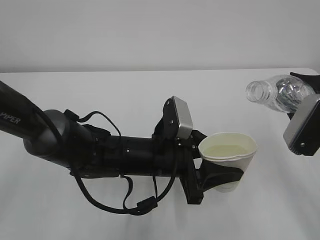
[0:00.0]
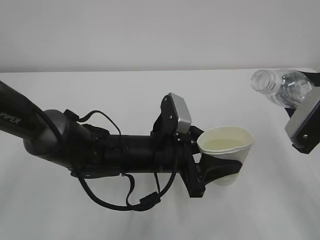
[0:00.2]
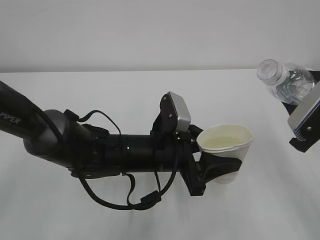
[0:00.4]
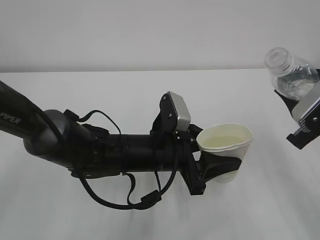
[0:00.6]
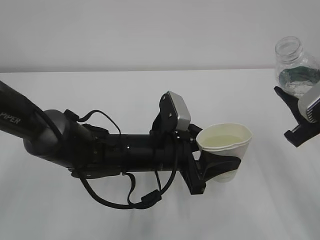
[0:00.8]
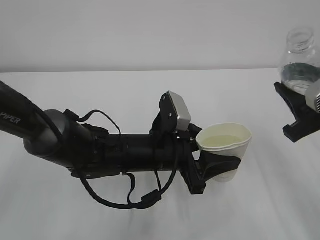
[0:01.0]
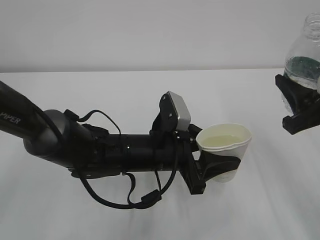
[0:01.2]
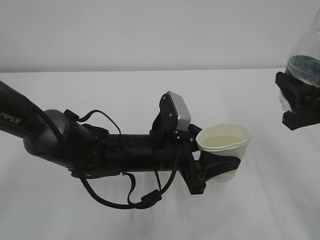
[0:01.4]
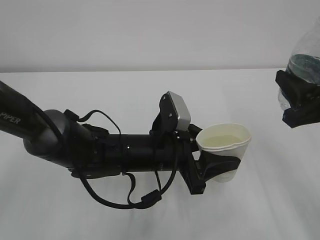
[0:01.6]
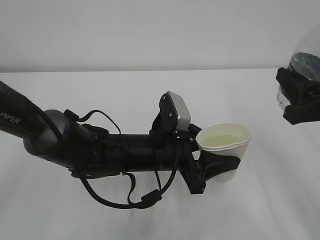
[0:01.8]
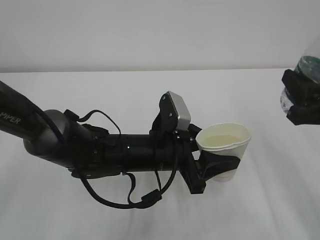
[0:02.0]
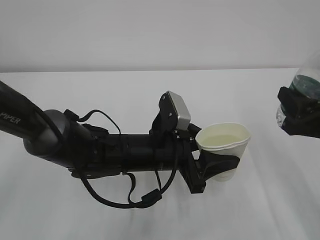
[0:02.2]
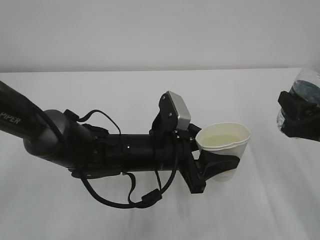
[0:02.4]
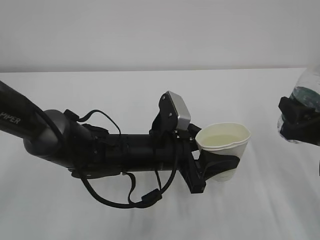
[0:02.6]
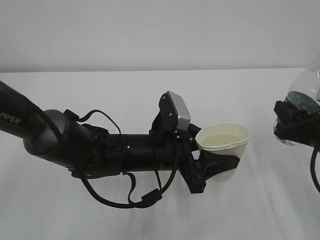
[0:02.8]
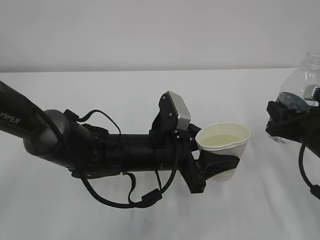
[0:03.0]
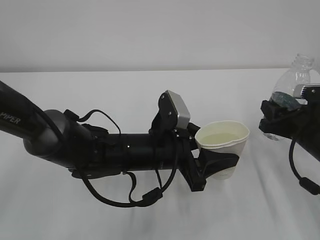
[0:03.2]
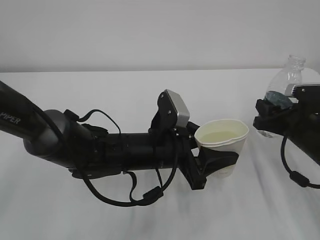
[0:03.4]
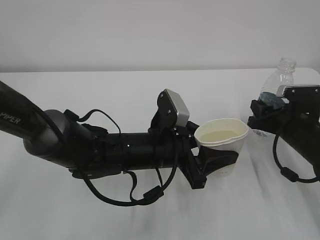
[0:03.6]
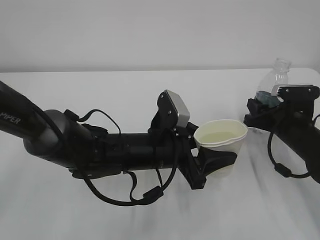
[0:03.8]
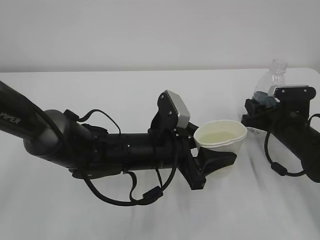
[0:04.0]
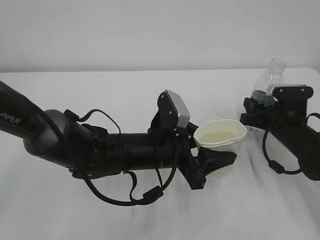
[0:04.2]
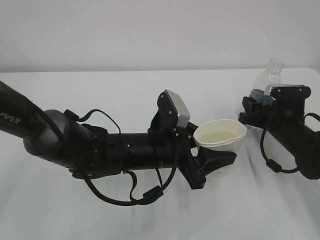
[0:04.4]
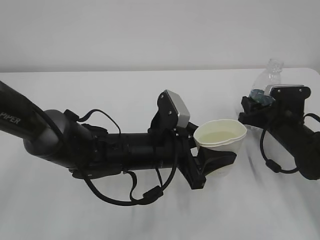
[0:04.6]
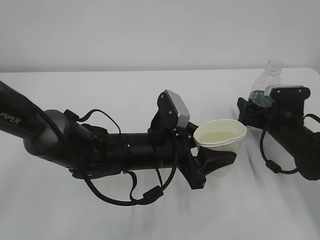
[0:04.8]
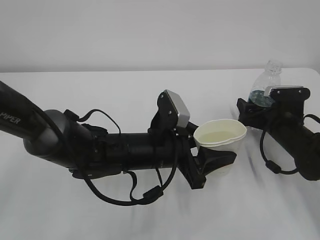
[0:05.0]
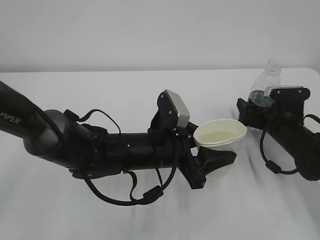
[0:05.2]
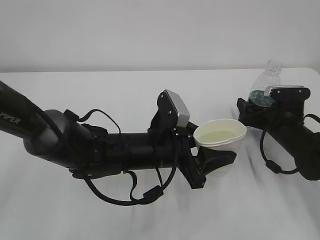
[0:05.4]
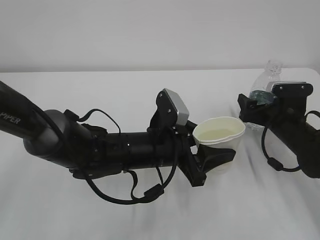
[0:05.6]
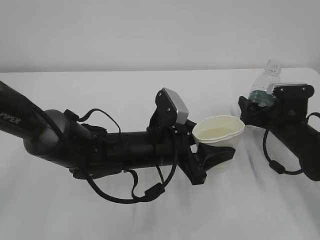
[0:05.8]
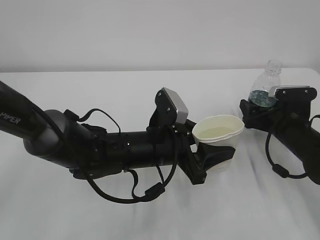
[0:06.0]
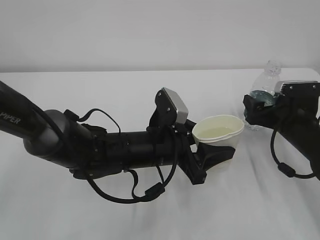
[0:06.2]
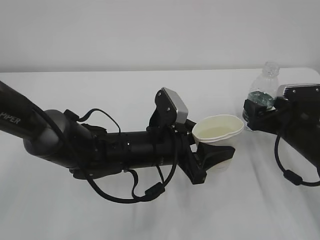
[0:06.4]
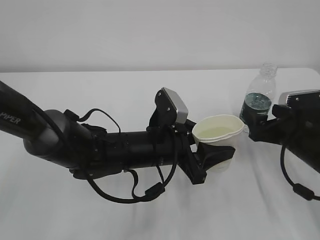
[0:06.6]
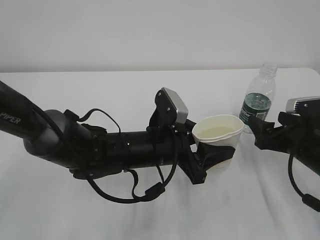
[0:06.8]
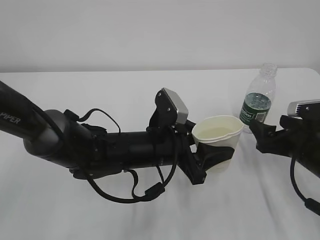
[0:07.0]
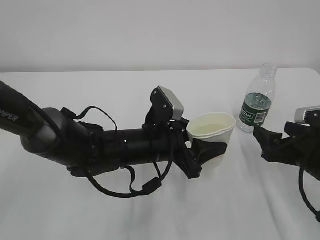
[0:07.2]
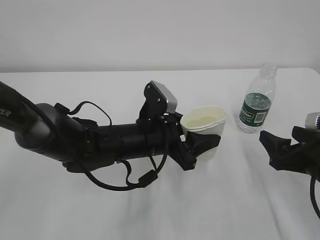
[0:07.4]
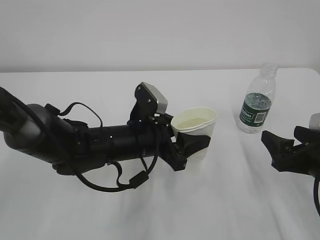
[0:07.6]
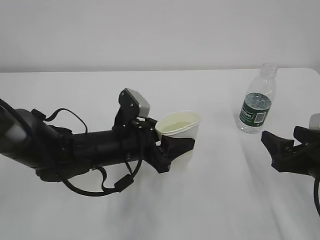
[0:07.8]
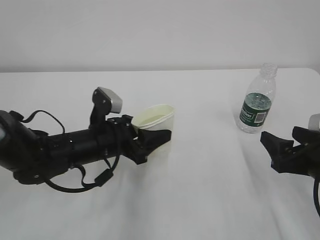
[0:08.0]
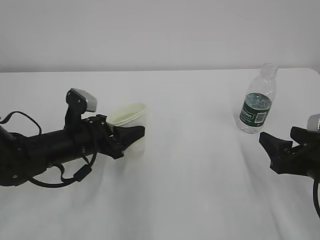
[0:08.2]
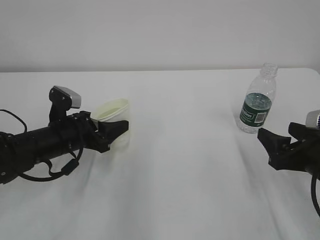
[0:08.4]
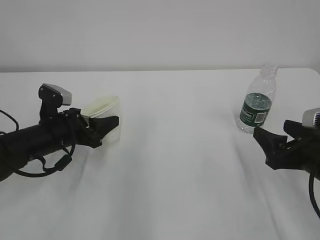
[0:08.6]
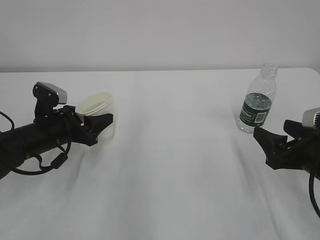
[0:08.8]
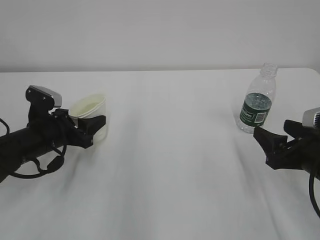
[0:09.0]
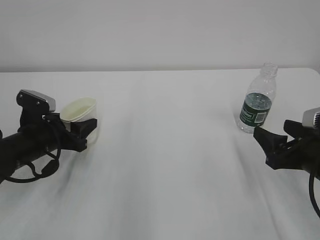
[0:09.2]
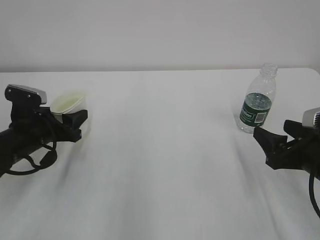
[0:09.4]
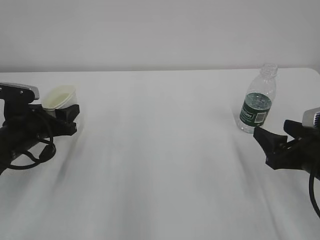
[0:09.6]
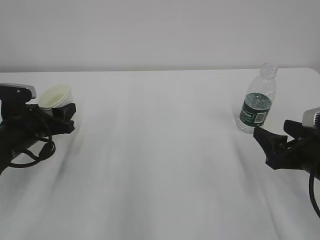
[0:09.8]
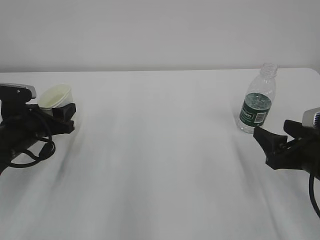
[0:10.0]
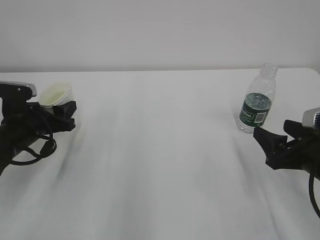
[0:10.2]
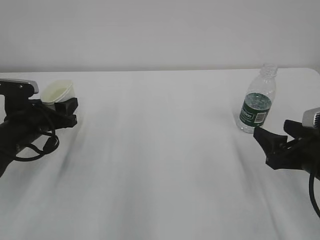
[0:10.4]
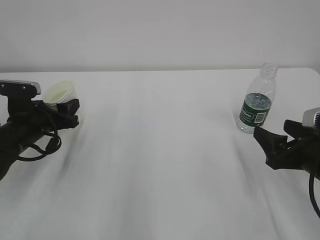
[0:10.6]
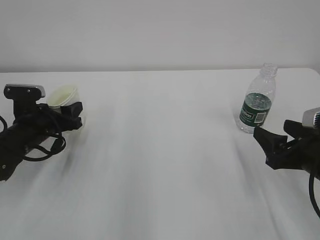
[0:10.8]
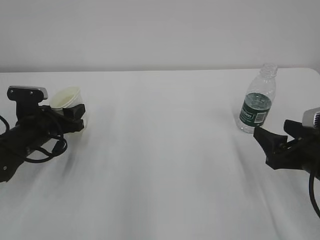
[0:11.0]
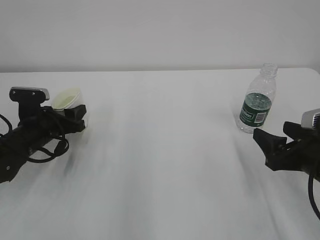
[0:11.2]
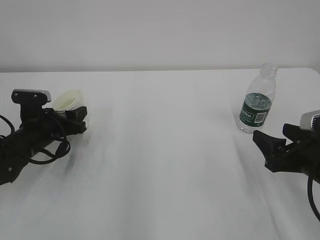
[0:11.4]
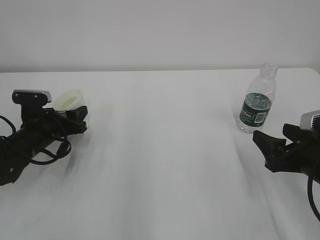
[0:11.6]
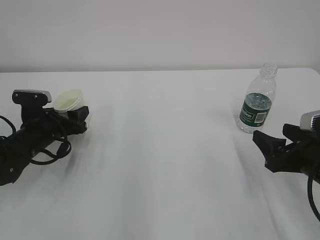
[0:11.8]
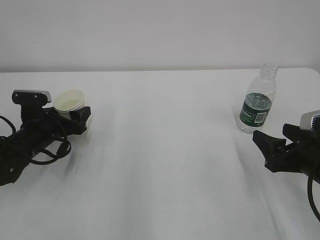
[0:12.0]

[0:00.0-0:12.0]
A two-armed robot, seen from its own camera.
0:01.6 to 0:03.0: The right gripper heads downward, covering roughly 10 cm.
0:03.0 to 0:04.4: The right gripper is displaced forward and downward by roughly 10 cm.
0:04.4 to 0:06.0: The right gripper opens.
0:06.0 to 0:07.6: The right gripper heads backward, covering some 15 cm.
0:07.6 to 0:09.0: The left gripper travels to the left by roughly 20 cm.
0:10.4 to 0:12.0: The left gripper opens up.

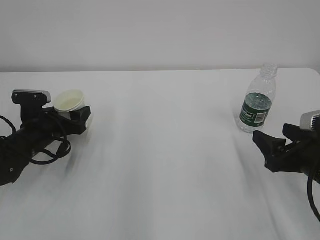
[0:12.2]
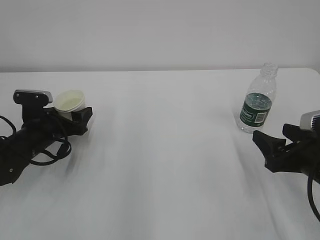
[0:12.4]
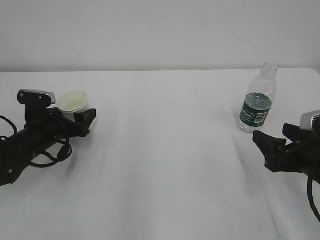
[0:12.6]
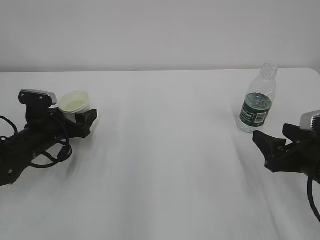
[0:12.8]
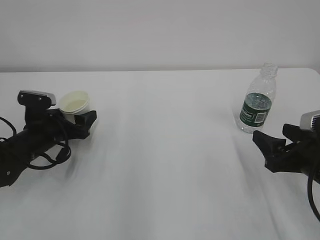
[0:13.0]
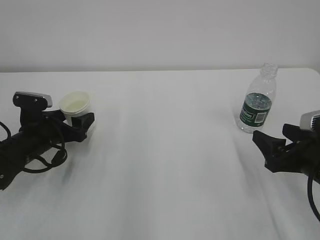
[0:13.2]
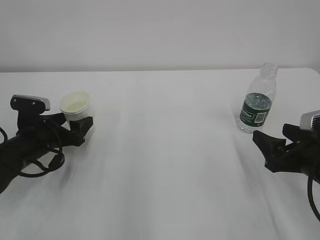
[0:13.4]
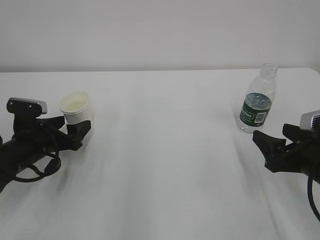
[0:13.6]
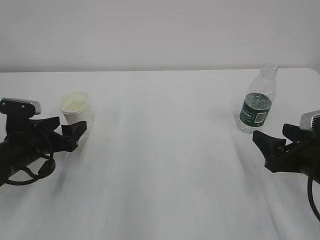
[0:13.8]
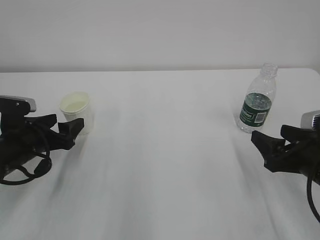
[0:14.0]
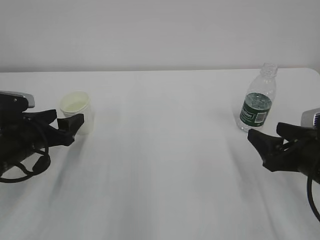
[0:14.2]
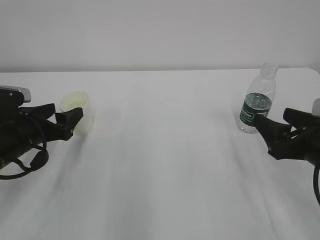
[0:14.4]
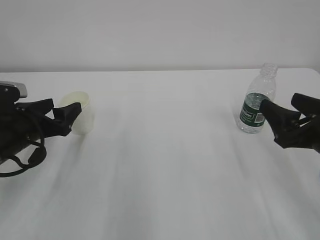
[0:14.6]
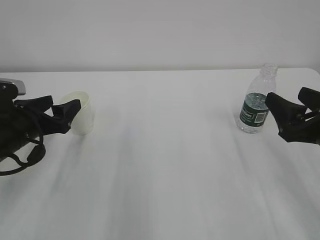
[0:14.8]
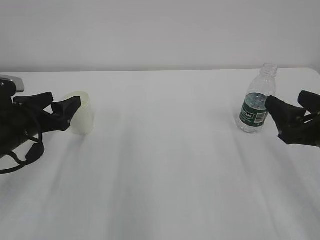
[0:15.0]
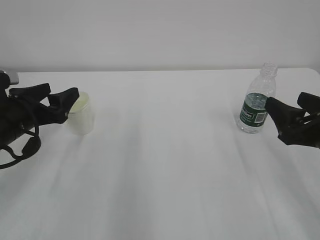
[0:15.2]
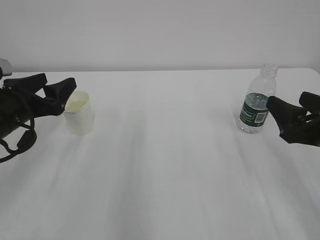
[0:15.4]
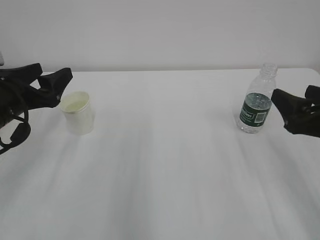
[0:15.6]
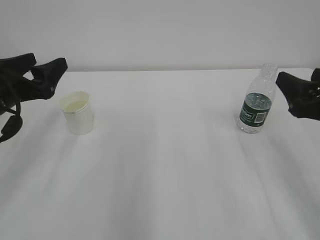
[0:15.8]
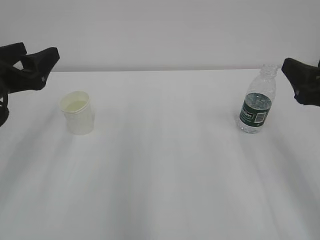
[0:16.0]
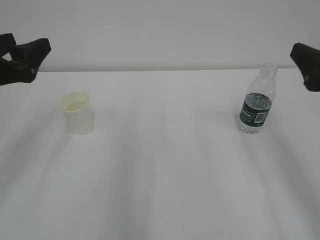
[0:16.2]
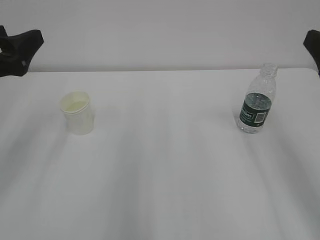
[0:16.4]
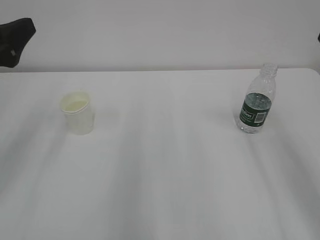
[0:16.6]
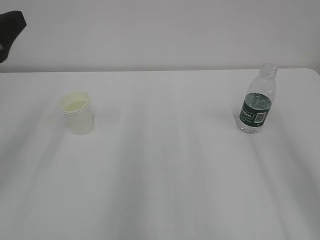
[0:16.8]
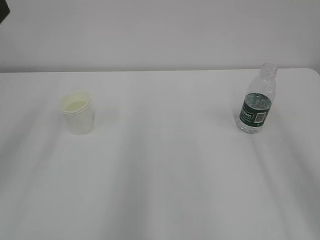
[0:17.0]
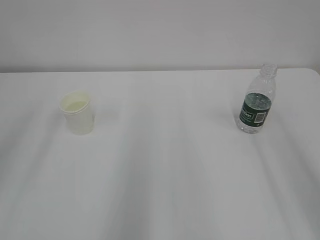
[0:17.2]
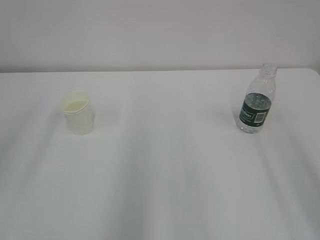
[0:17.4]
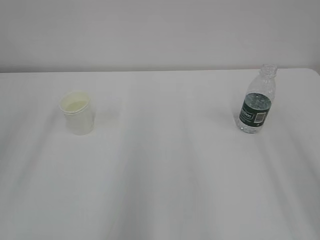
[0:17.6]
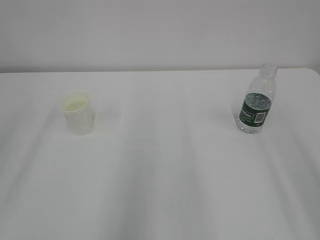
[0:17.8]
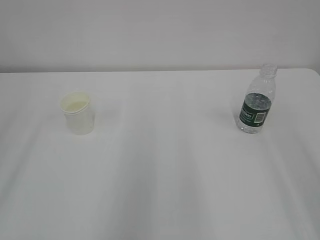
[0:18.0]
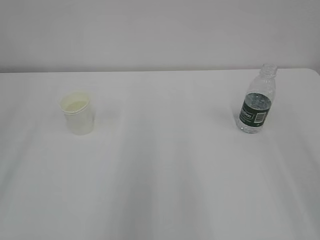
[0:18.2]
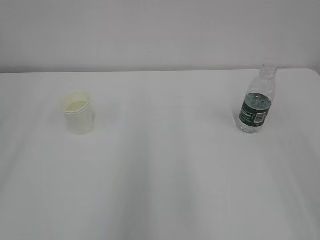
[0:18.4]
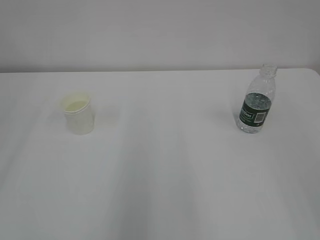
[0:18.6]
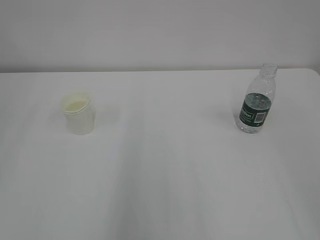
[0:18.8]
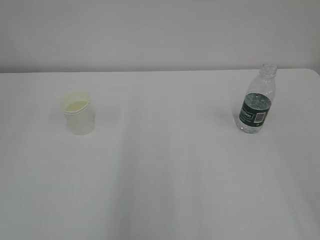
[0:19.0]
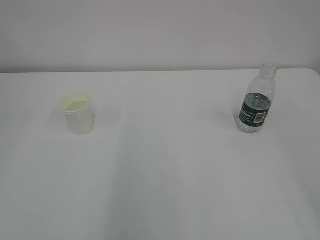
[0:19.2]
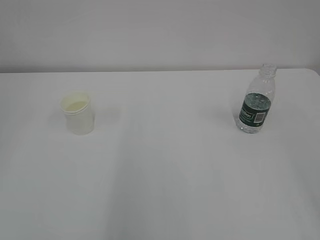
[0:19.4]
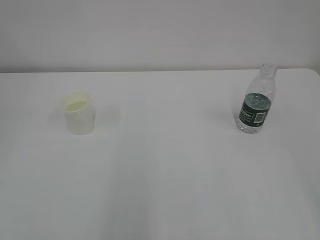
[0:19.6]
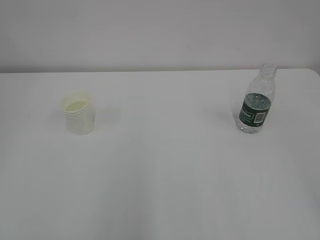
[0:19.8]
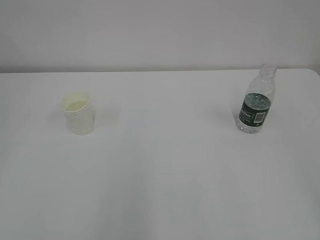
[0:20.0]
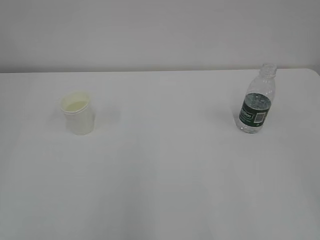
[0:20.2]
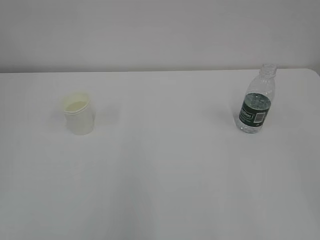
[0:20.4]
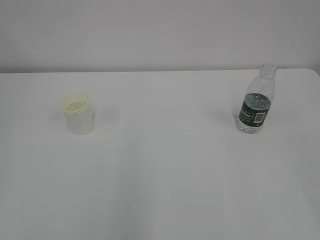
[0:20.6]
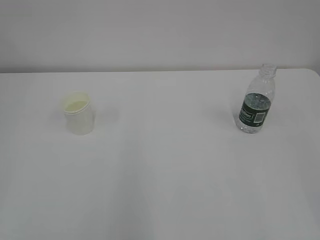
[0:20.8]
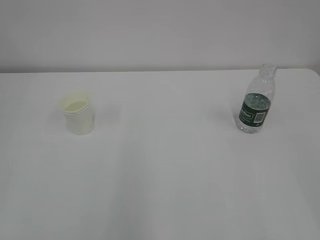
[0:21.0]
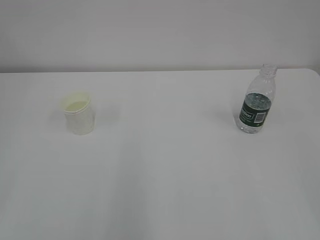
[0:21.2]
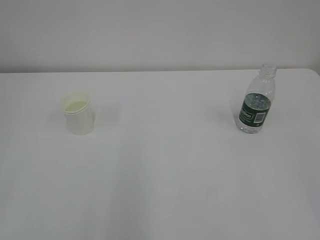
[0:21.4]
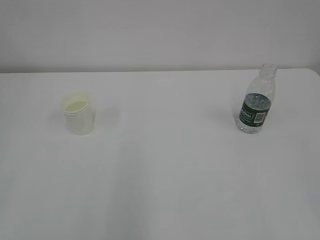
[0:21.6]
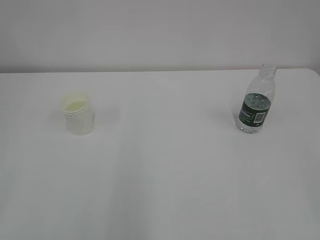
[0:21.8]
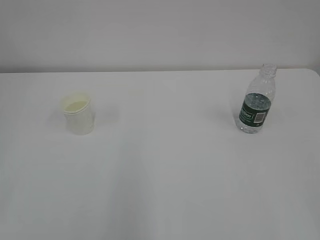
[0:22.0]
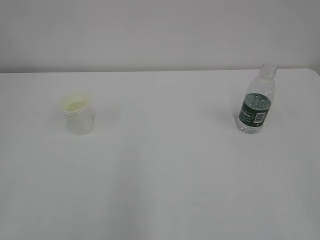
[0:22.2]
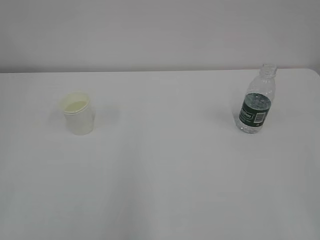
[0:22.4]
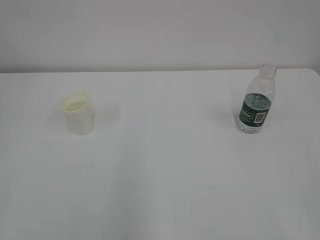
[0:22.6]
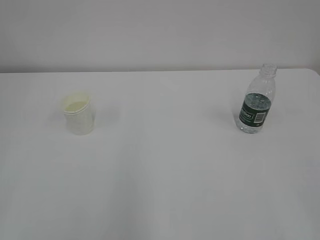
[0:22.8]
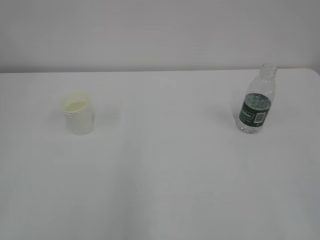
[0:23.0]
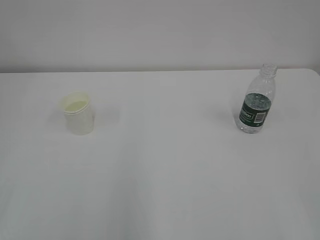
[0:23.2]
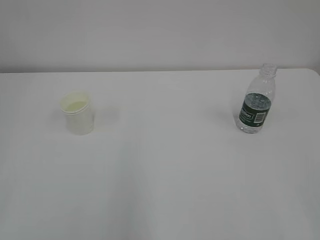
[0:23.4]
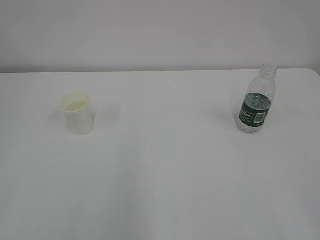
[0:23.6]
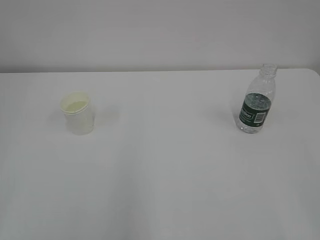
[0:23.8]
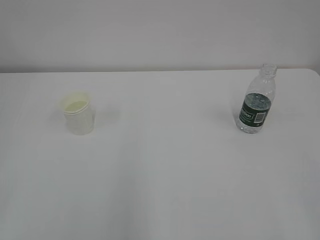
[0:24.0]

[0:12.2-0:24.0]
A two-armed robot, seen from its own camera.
0:12.2 to 0:13.6: The grippers make only small movements.
0:13.6 to 0:15.2: The left gripper goes some 10 cm upward. Meanwhile the right gripper moves upward, some 5 cm.
0:15.2 to 0:16.6: Both grippers move upward, about 10 cm.
0:16.6 to 0:18.2: The left gripper is displaced backward and upward by about 20 cm.
0:22.6 to 0:24.0: Both grippers stay about where they are.
